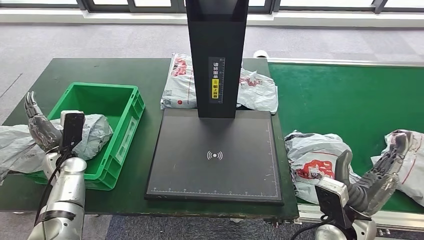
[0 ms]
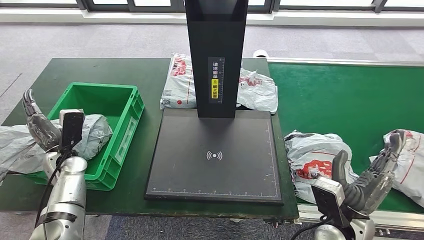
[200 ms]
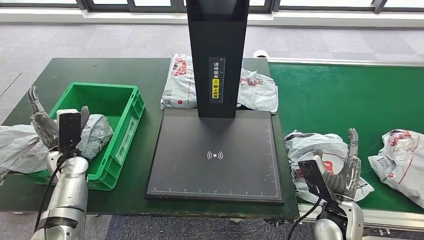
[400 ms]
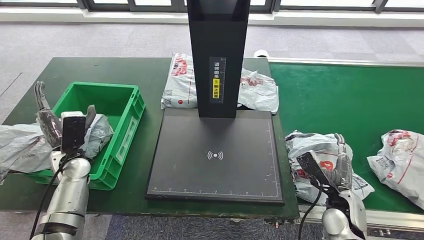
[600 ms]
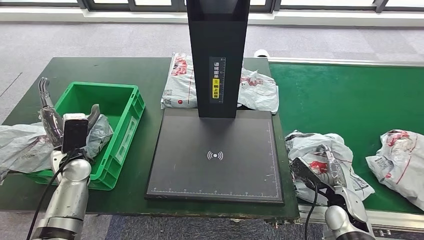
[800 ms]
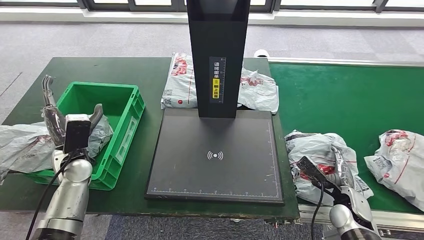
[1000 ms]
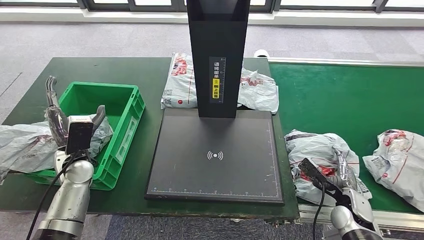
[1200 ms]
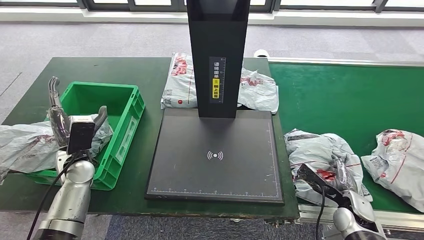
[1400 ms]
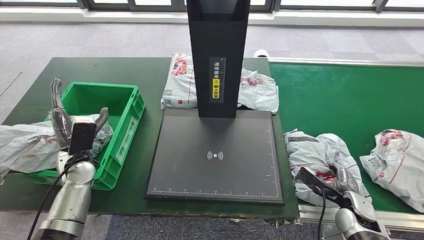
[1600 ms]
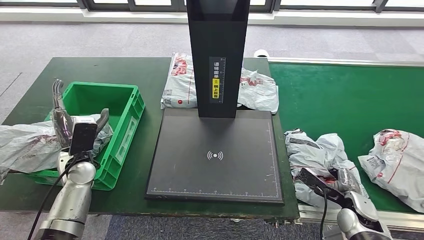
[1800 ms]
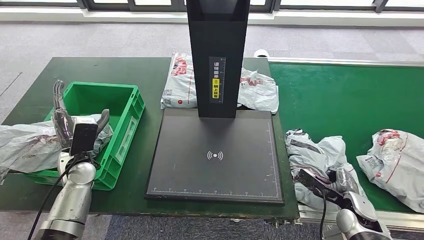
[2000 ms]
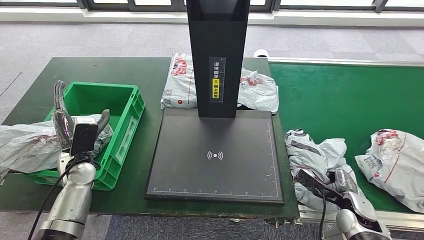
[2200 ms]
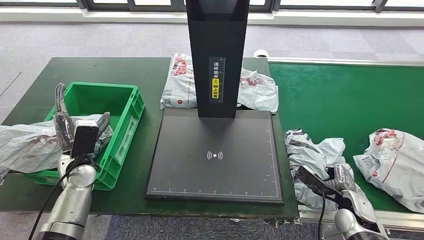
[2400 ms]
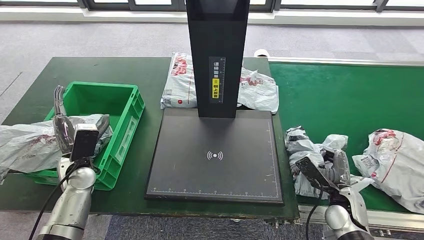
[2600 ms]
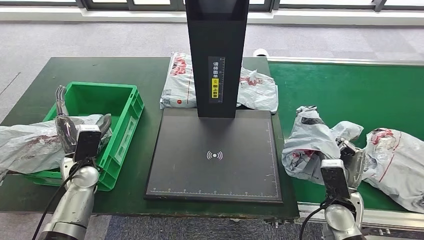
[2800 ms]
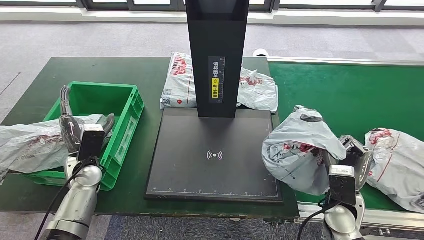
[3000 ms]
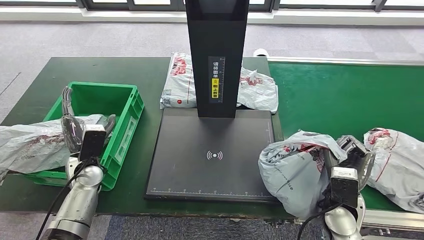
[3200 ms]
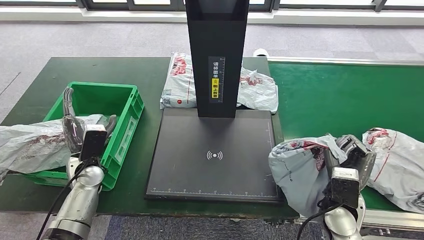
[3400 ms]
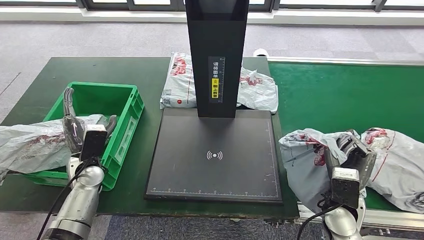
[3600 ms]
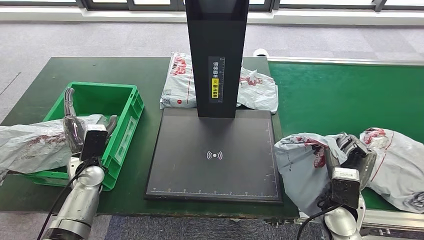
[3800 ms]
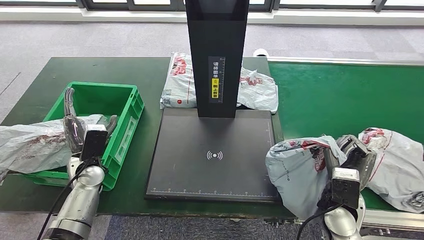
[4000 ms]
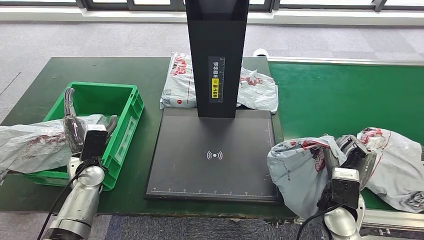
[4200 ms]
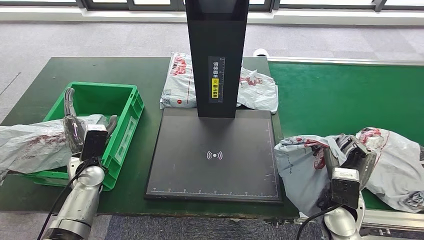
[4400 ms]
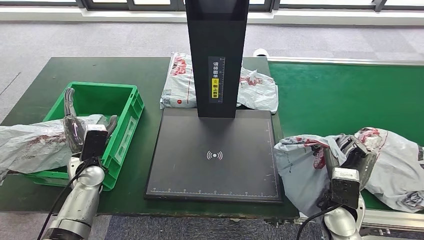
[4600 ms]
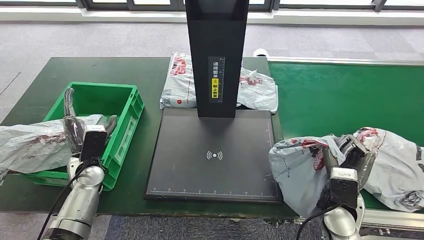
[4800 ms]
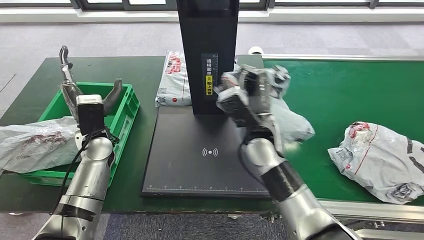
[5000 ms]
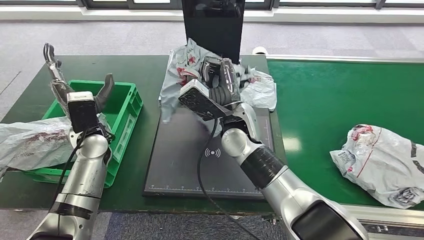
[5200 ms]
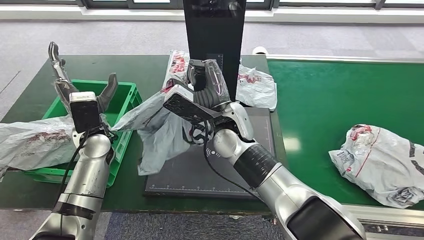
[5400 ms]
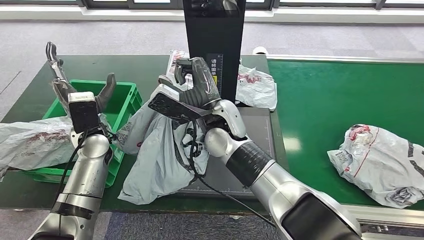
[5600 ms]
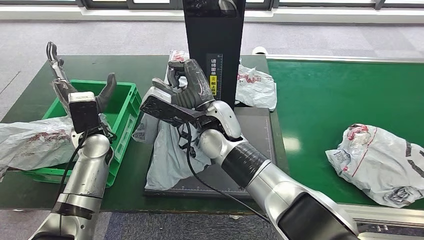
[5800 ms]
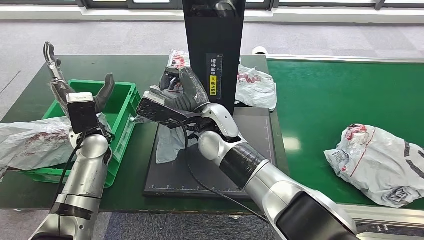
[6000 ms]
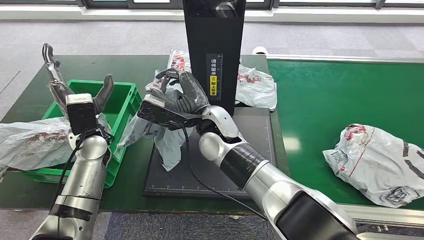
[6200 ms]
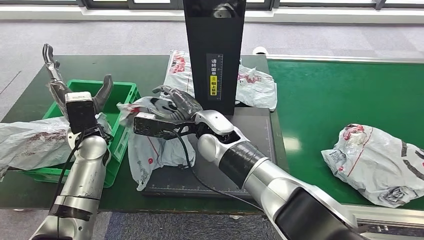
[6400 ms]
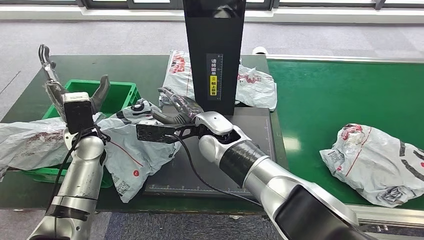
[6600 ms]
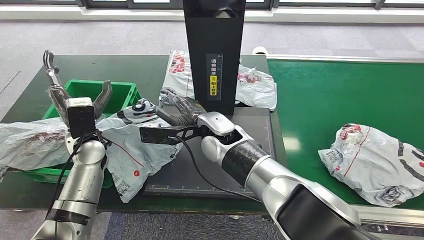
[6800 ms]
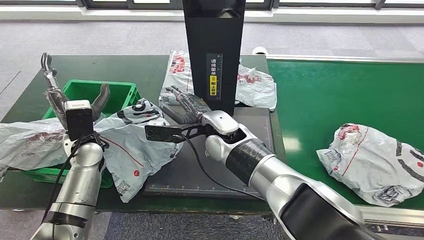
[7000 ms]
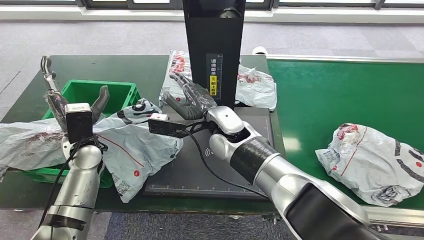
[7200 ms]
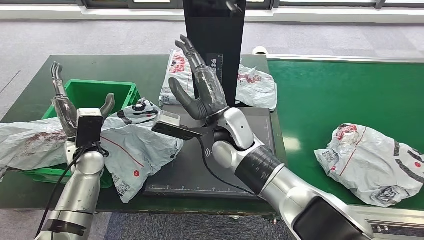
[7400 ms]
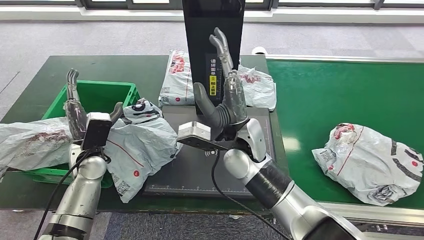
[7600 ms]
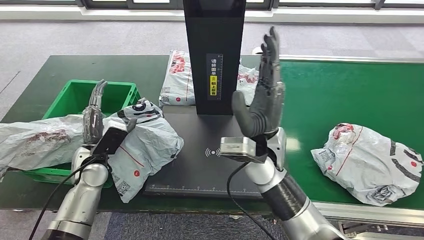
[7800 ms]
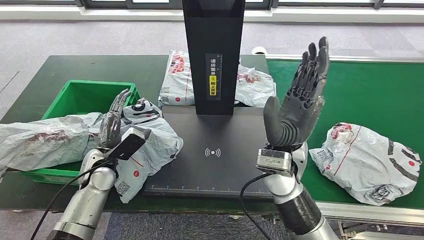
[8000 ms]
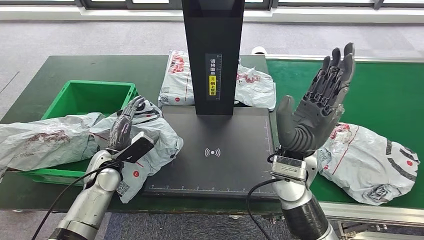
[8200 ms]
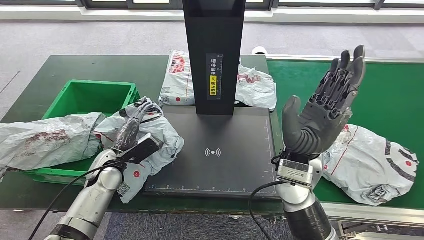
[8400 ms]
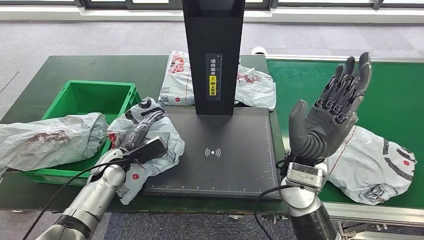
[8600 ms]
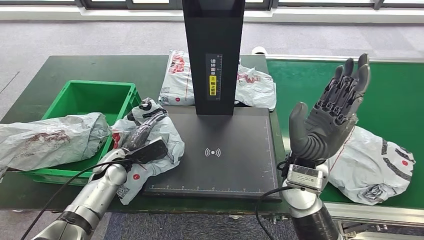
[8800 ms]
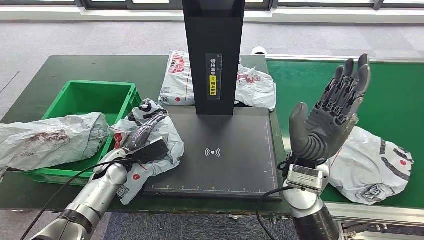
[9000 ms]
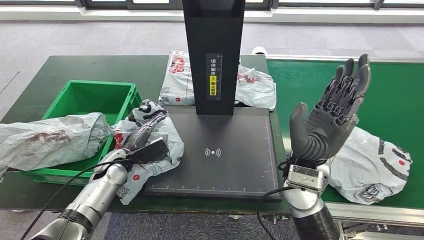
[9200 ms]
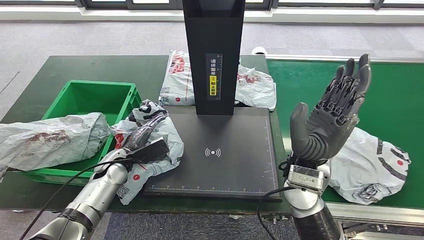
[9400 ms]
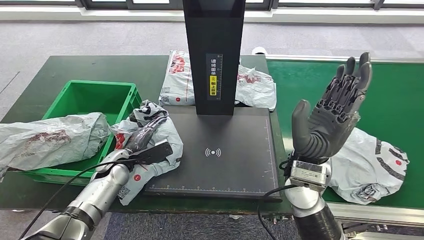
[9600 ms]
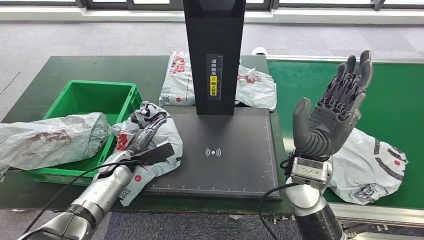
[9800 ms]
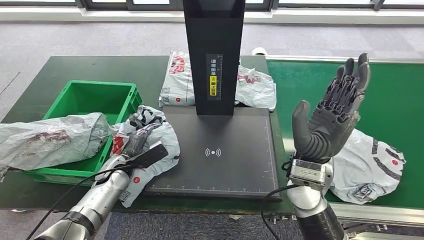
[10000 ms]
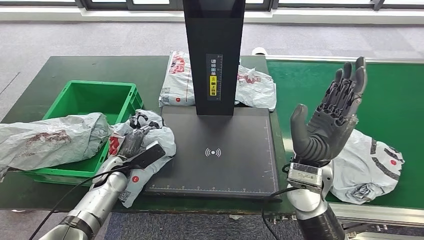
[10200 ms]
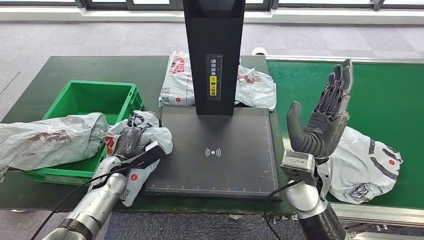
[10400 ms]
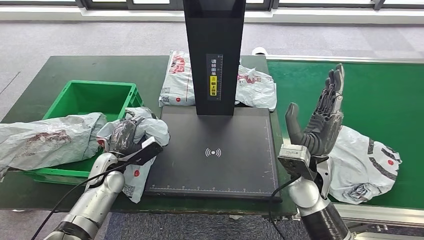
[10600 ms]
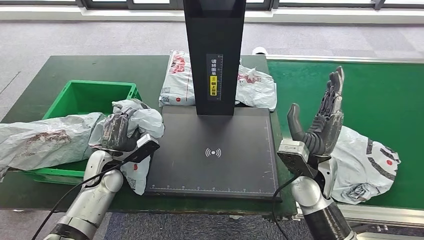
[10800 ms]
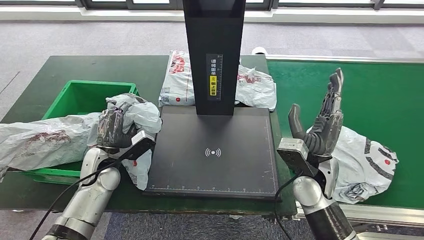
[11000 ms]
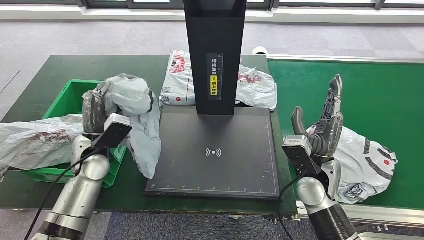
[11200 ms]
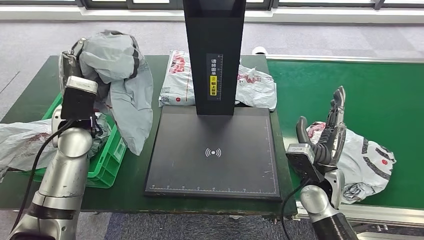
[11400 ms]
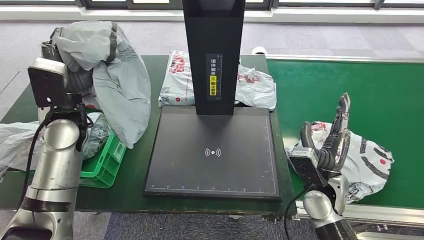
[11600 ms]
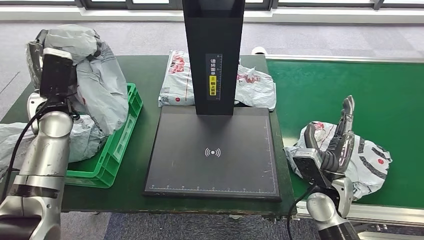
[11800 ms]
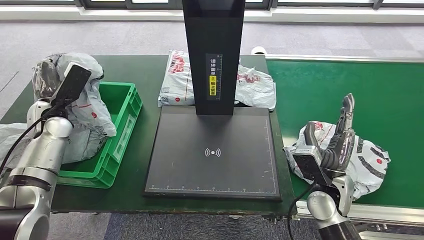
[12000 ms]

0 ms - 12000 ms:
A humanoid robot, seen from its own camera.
Step, 800 ms - 3600 ms: Pick up the parcel from the conveyor belt.
Step, 3800 ms - 7400 ms: Place the parcel onto the inbound machine.
Step, 7600 ms - 11200 ms: Pick up the parcel from the inbound machine.
3000 ms - 4400 ms: The two hands keep their place.
9000 ms - 10400 ms: The hands make only small movements.

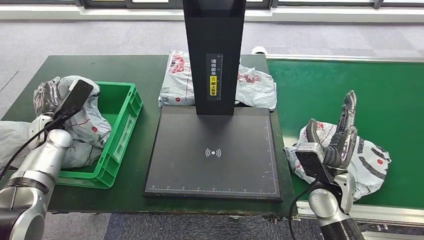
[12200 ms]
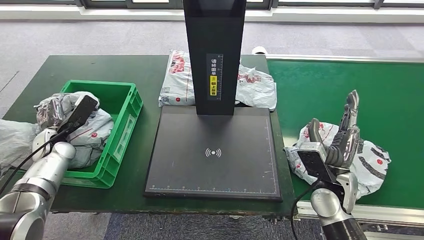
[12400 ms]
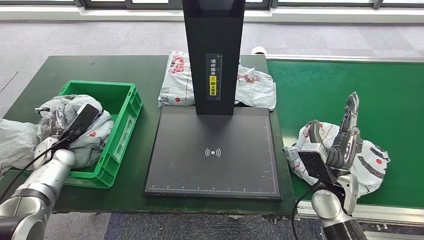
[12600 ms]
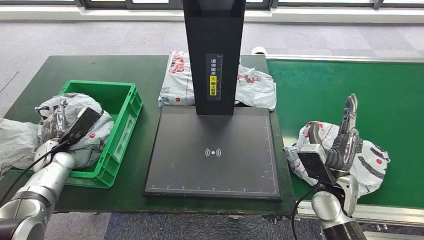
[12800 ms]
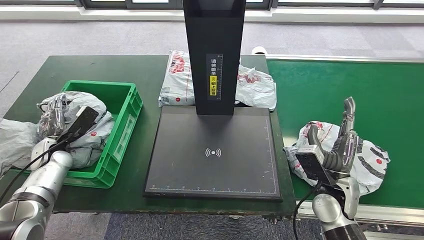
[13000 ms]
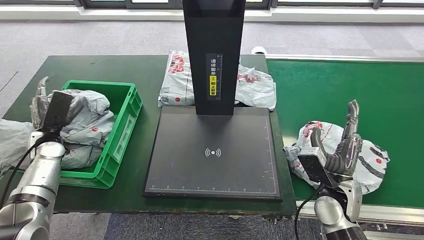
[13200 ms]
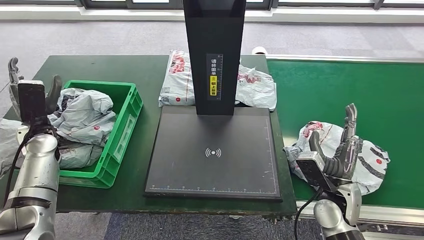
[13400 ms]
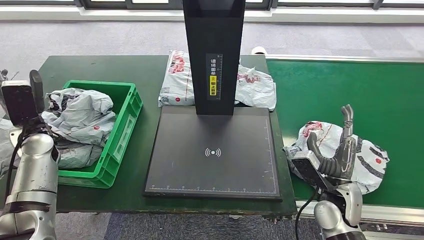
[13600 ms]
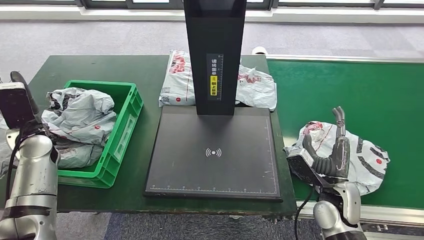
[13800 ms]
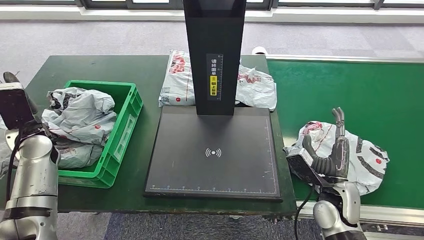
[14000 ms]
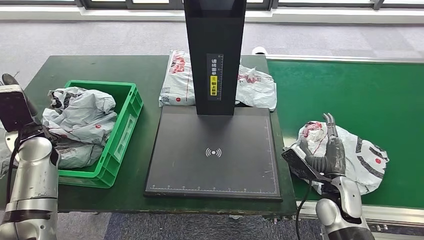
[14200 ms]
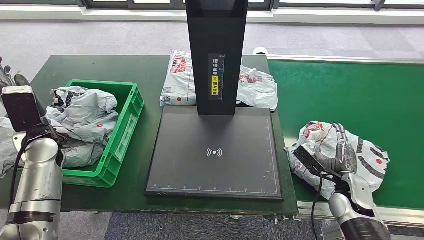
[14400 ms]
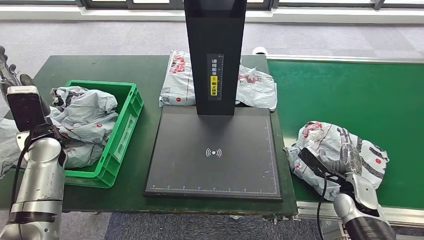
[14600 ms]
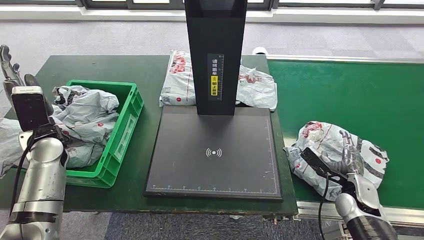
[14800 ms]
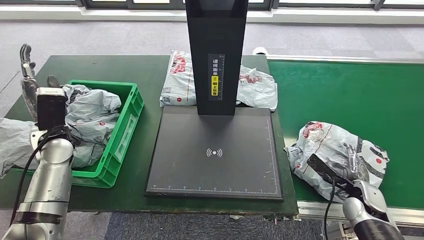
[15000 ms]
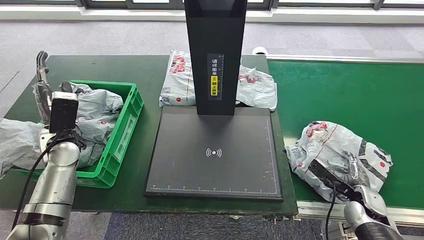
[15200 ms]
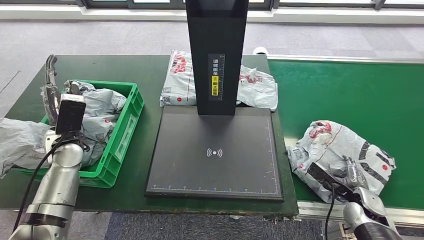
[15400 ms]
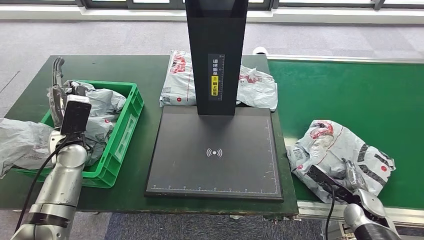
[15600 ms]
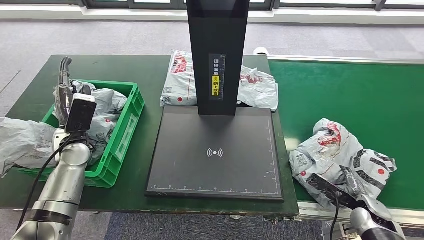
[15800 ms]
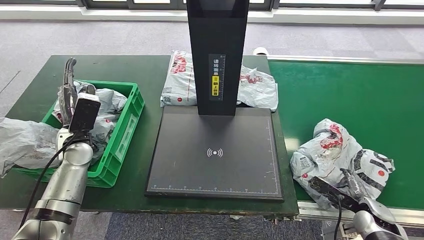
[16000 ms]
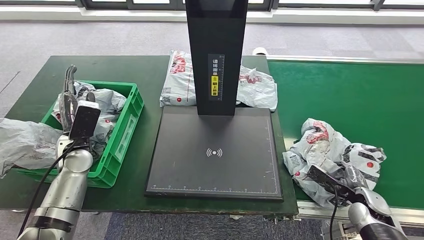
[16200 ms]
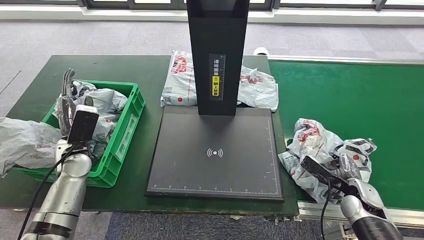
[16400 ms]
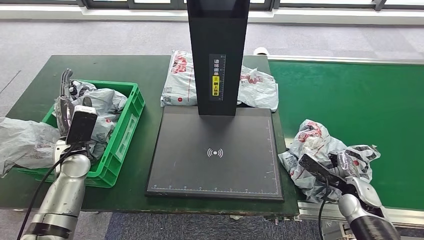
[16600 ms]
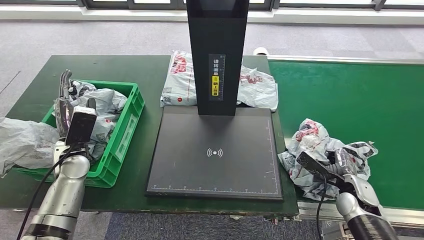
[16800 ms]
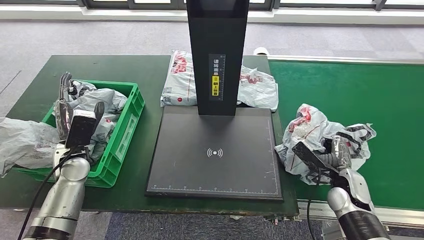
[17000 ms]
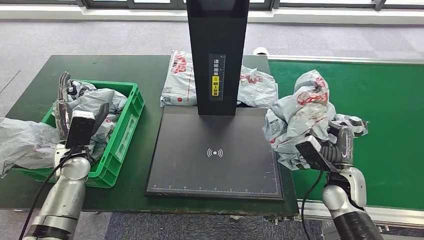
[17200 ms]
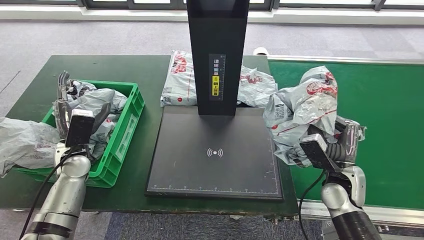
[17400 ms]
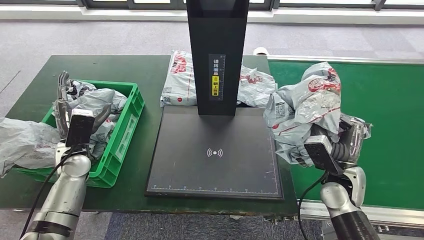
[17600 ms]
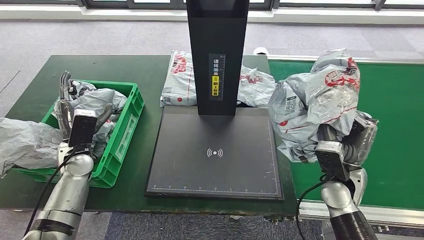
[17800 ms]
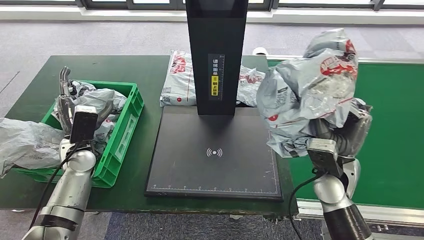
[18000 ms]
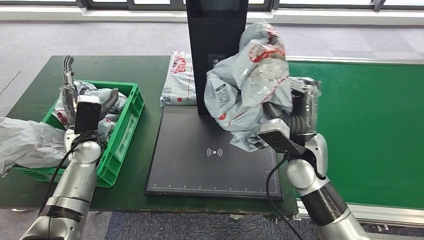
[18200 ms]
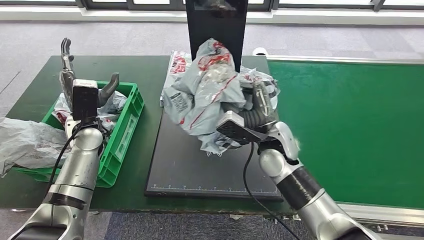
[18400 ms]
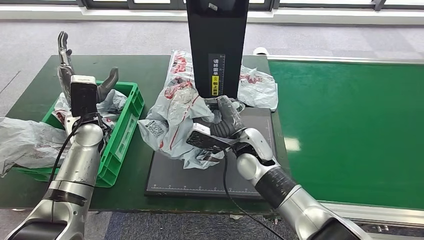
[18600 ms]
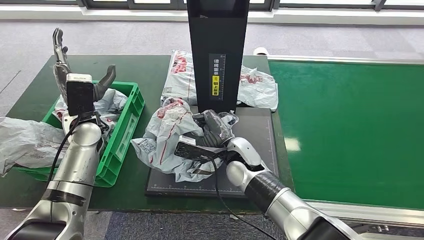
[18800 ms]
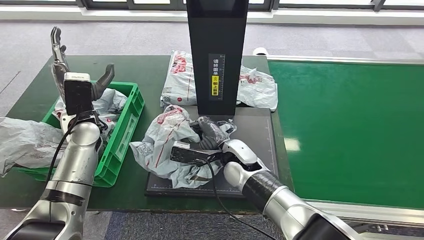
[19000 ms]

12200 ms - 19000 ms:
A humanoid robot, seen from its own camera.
Step, 12200 ms - 15000 ms: Place the parcel into the delivery box.
Step, 15200 ms - 17600 ms: Pick up the parcel from the conveyor belt.
12200 ms - 13600 ms: The left hand reaches roughly 5 cm downward, then returns.
15000 ms - 16200 ms: The left hand moves about 5 cm.
16200 ms - 17600 ms: The right hand moves to the left and upward, about 15 cm.
